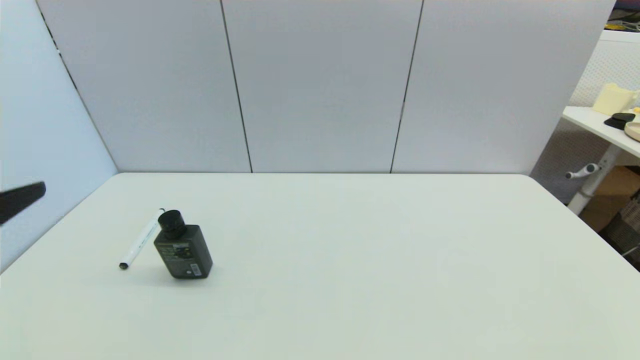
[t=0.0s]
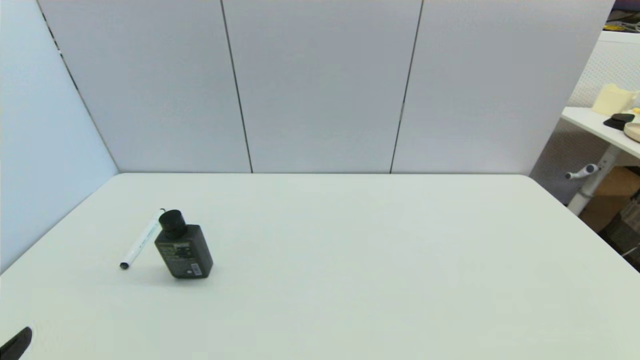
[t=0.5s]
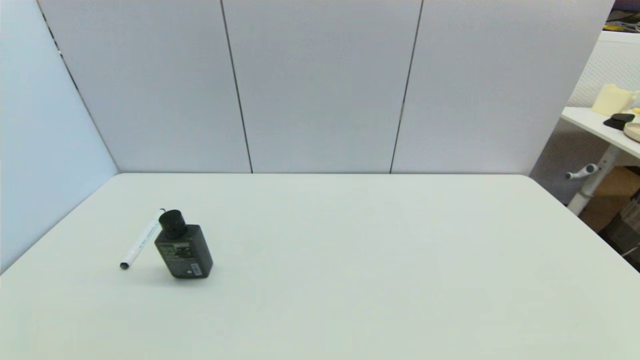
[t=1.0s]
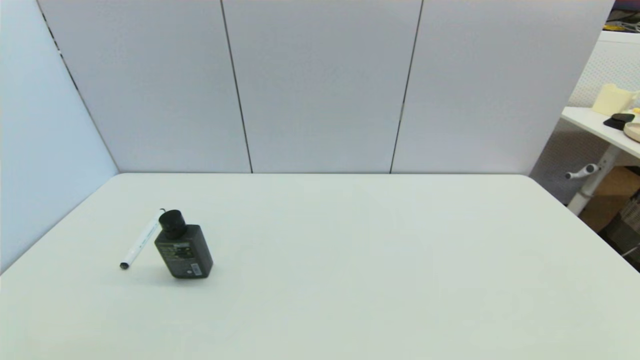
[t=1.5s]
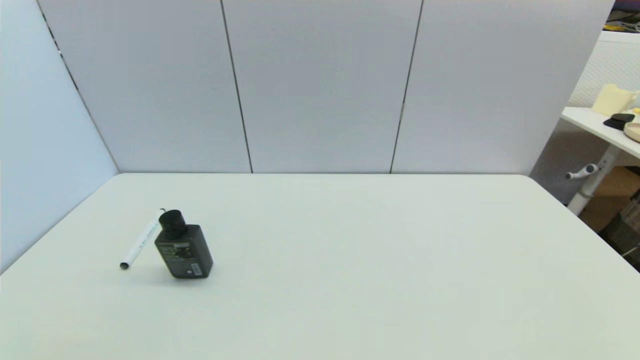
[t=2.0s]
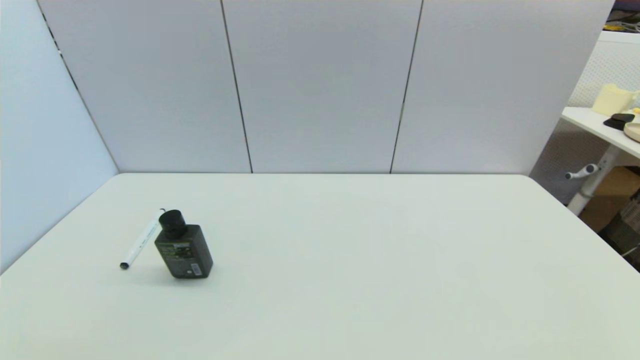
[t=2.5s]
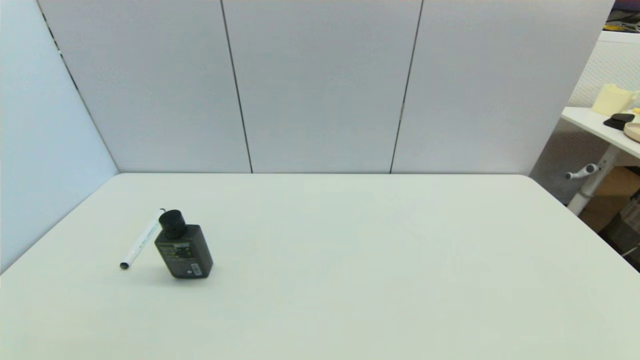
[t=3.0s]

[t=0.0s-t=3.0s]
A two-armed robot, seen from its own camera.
Task of the whole recording: put the black marker in the designated position.
t=1.5s to t=3.0s: Both grippers stay put.
